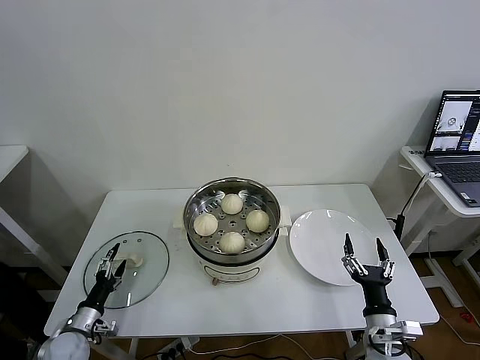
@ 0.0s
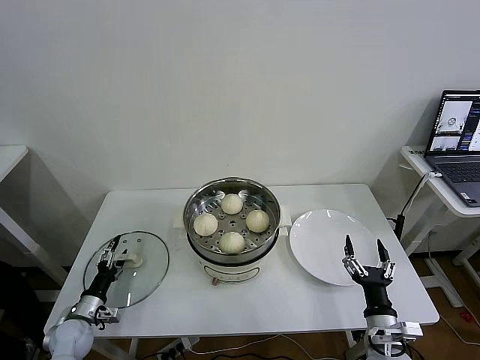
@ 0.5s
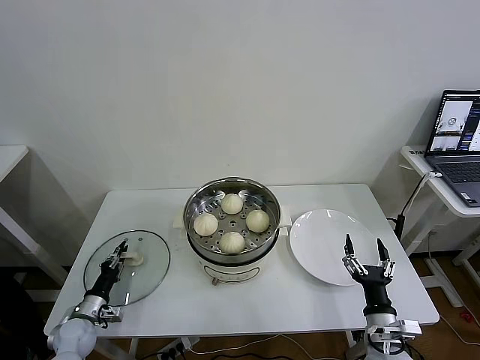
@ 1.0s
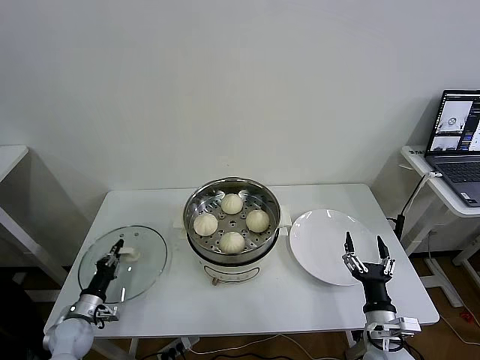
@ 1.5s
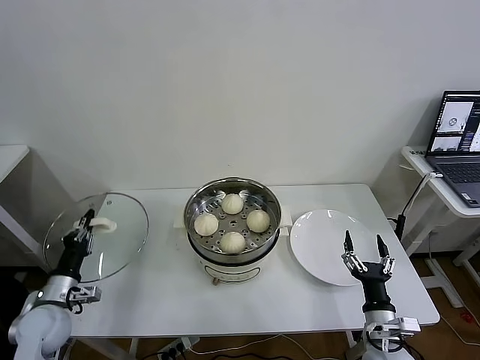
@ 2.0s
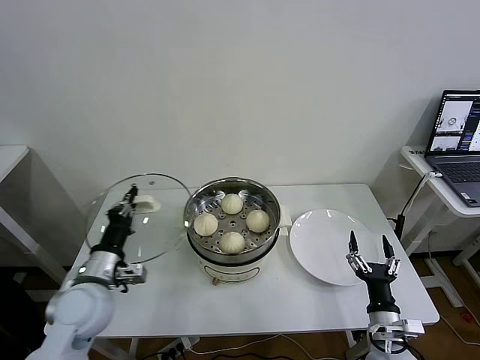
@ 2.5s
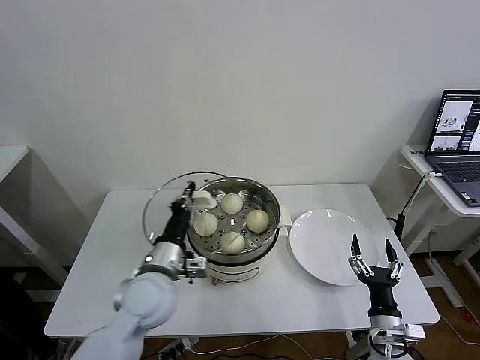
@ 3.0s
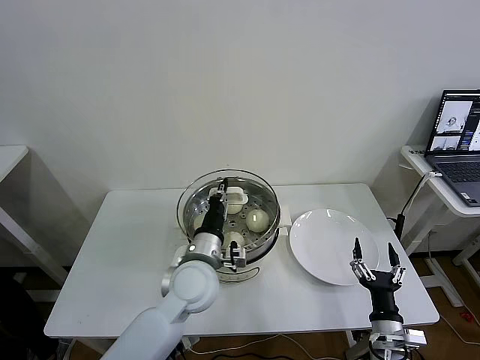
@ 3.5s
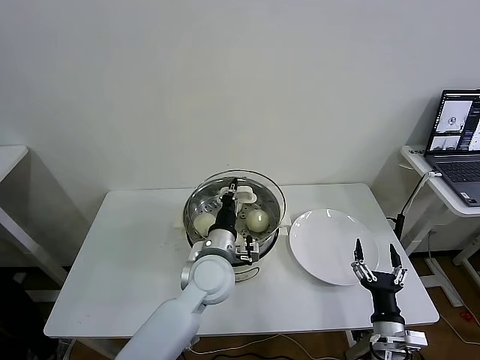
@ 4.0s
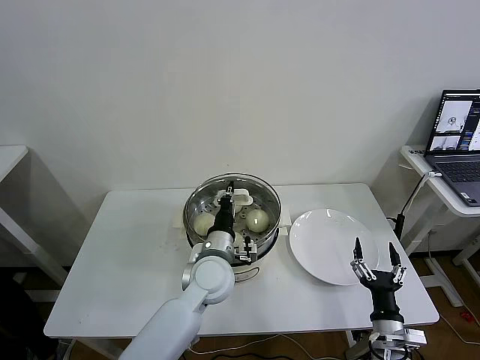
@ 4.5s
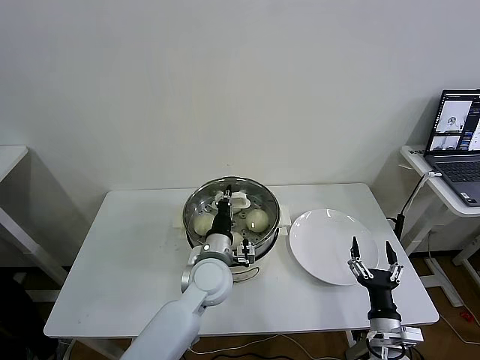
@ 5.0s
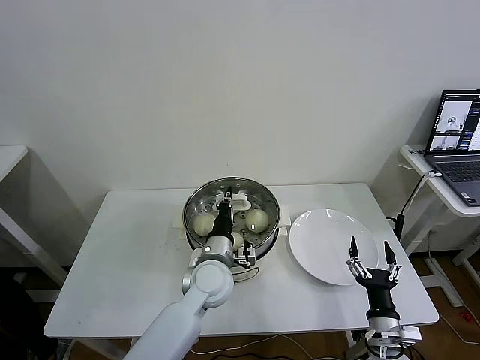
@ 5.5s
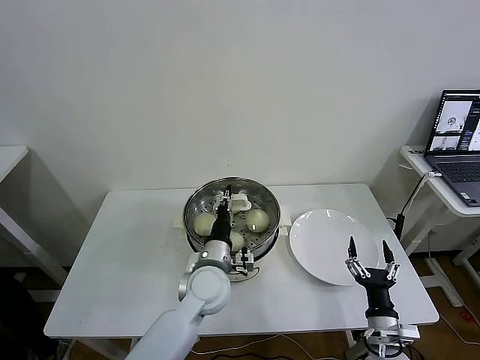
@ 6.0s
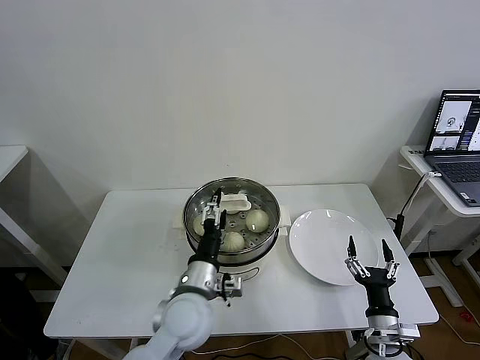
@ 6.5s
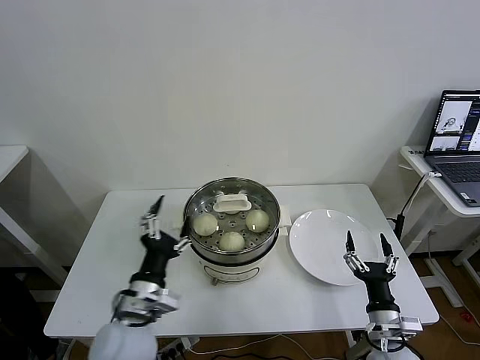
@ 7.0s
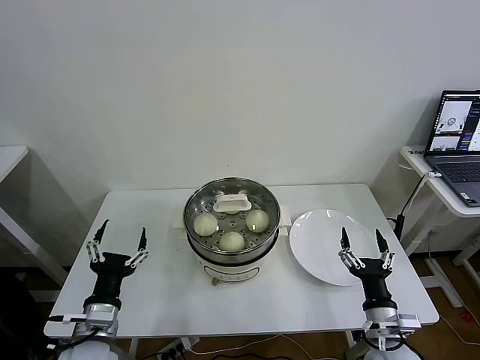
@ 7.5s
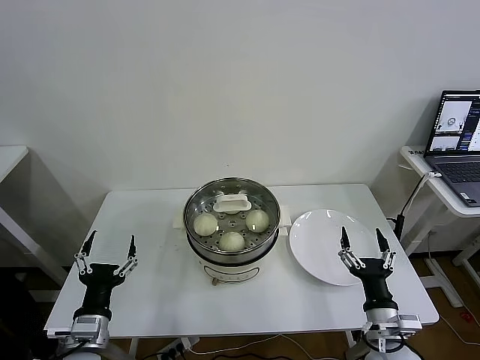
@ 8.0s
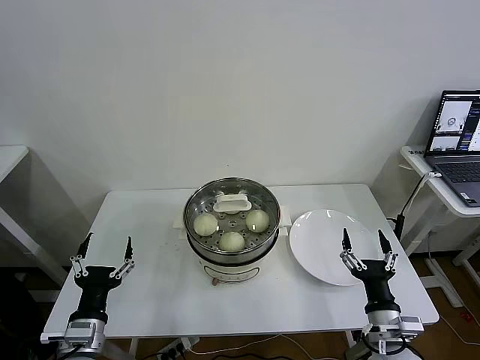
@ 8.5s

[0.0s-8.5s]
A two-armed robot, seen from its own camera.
Task of the whole recording: take steamed baozi put them in steamer then cover it.
Step, 1.5s to 6.5s: Place the pot lid on the steamer with left gripper.
0.0s to 2.0s: The left gripper is displaced upward by roughly 10 cm, and closes.
2.0s to 4.0s: The left gripper moves to the right, roughly 35 cm.
4.0s to 6.5s: The left gripper goes approximately 5 cm backward, and opens its fingers.
6.5s to 8.5s: The left gripper heads to the left and backward, covering roughly 20 cm. Meanwhile the right gripper shifts approximately 5 cm upward.
